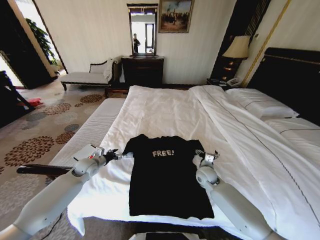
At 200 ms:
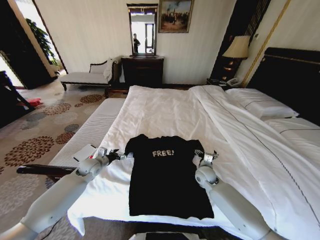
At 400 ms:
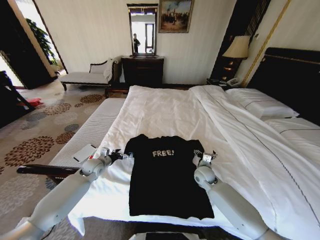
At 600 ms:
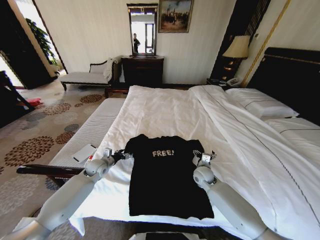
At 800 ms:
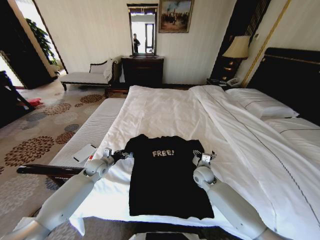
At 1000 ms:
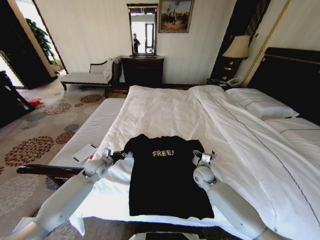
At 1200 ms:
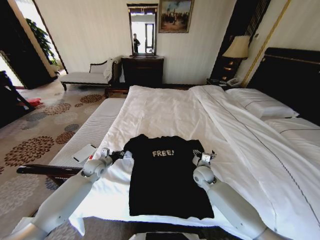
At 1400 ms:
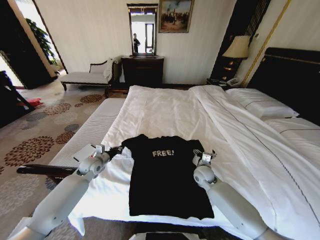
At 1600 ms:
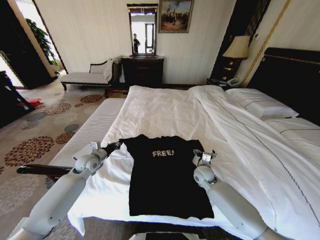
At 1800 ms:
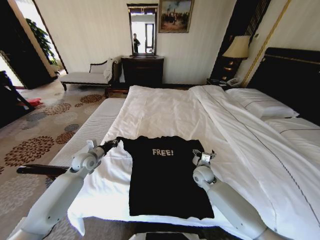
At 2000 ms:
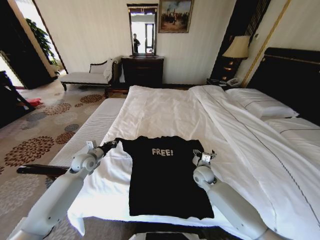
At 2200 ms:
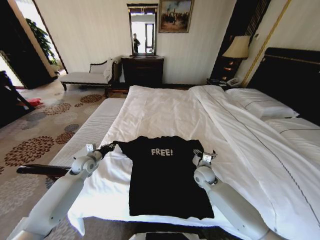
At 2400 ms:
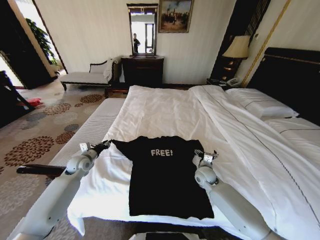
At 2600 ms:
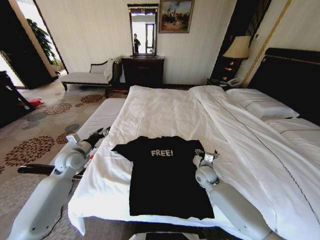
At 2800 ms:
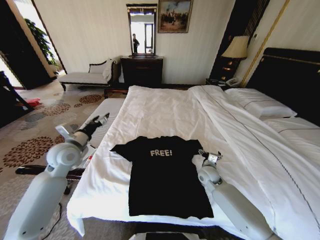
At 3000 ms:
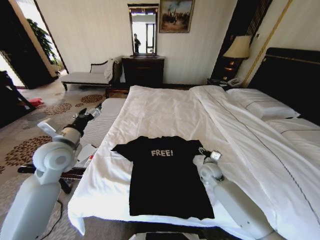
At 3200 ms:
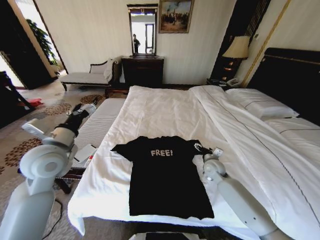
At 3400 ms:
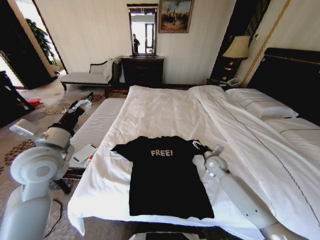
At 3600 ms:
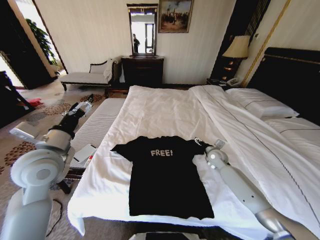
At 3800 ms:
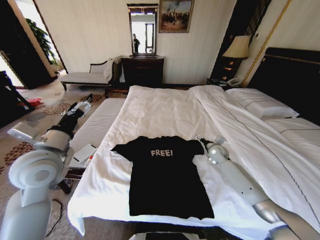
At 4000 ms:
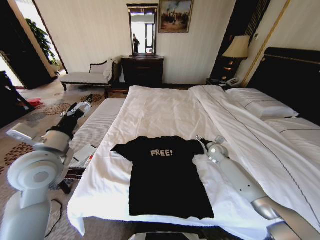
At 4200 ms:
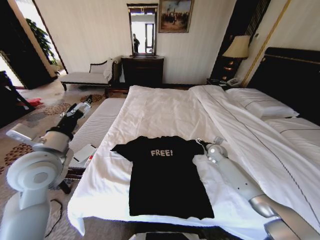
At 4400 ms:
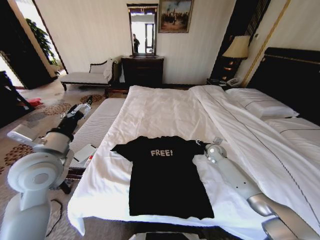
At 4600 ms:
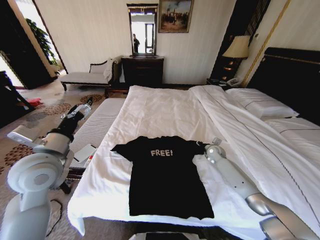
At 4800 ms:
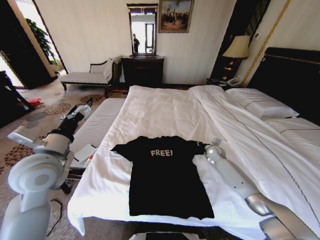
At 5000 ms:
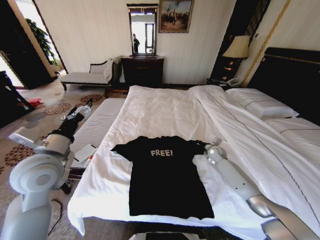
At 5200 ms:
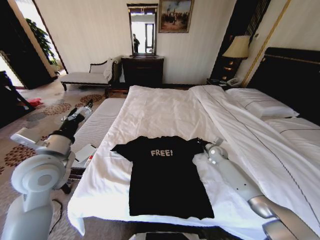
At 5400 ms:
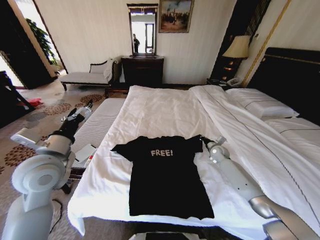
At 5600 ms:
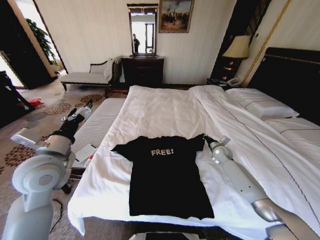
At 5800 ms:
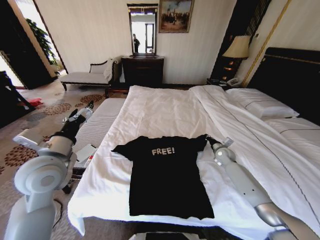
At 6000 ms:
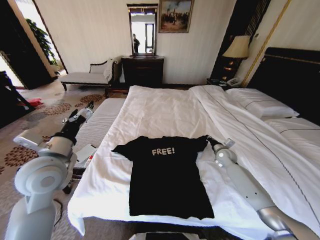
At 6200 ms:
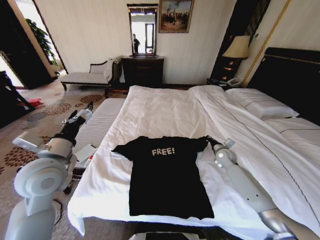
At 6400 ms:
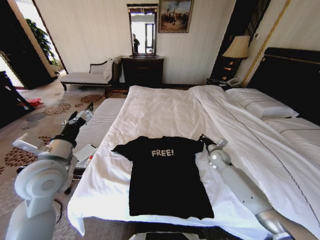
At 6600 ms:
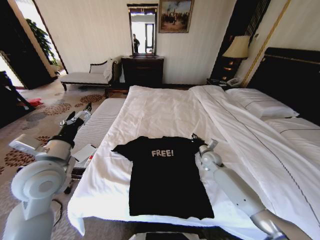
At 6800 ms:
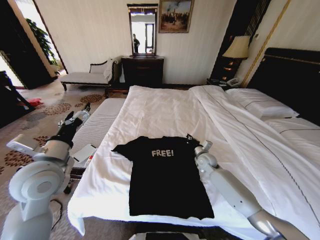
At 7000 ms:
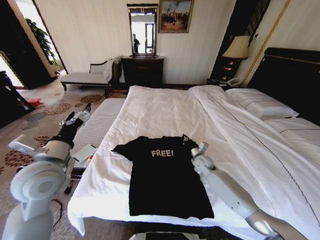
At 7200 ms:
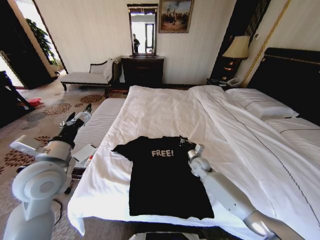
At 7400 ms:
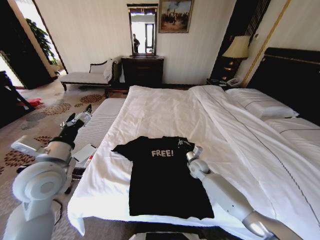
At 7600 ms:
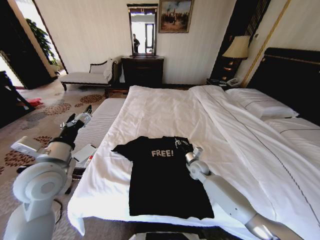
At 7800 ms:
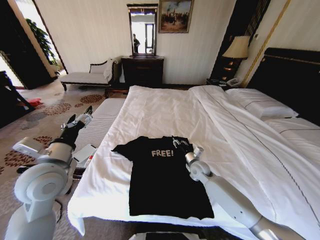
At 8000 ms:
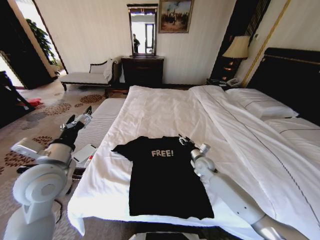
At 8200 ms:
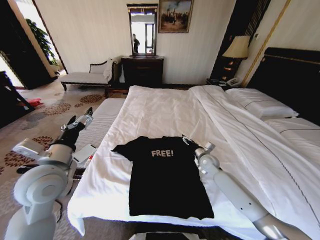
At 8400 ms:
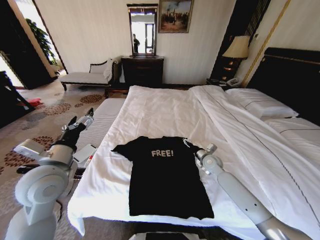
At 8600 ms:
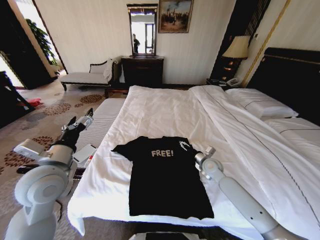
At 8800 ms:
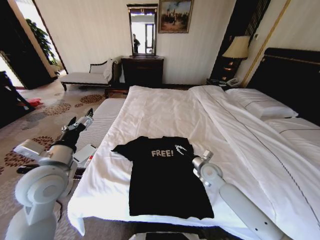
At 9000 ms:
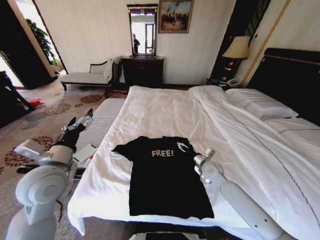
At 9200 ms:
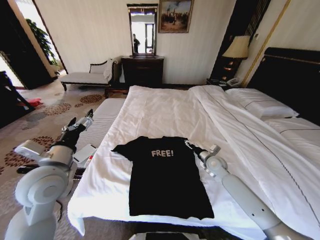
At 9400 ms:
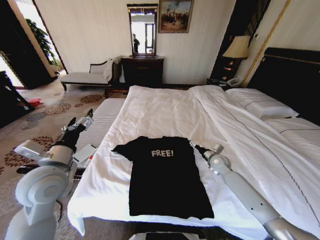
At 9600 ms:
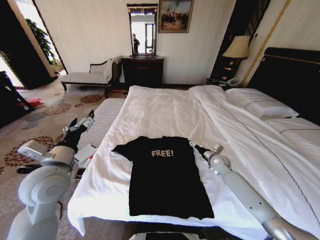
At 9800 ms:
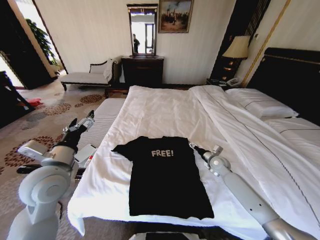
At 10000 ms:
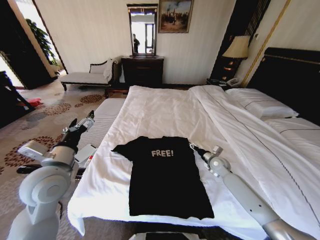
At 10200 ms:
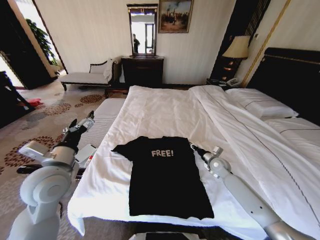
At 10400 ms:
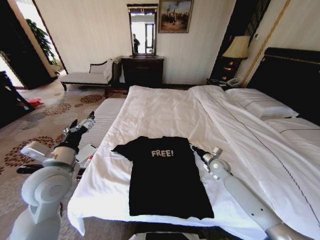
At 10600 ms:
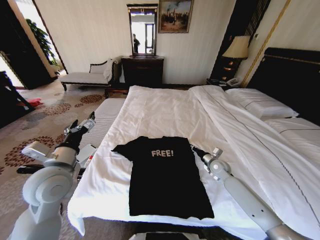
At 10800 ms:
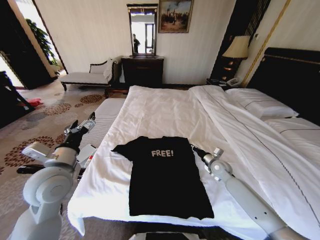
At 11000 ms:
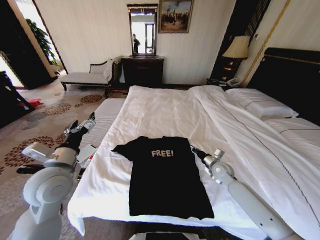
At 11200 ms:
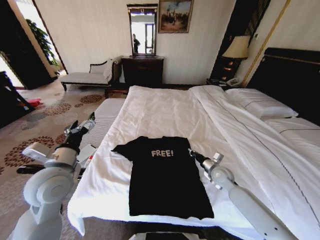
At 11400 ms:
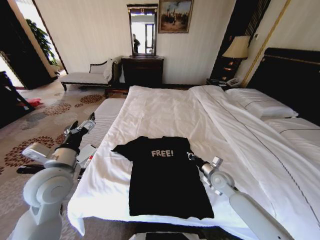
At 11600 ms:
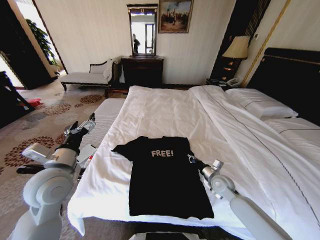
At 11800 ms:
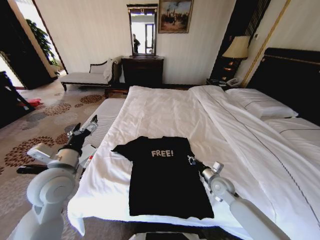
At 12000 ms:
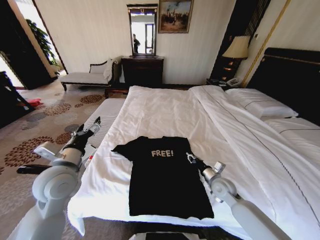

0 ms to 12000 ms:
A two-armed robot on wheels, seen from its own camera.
Task of the whole recording: Fold the clothes on the bed.
0 ms to 1600 ms: The left gripper closes up.
1600 ms to 3000 ms: The left gripper travels upward and backward by about 20 cm, and opens up.
3000 ms to 4400 ms: The right gripper travels forward and to the right by about 15 cm; the left gripper heads backward, covering some 5 cm.
4400 ms to 6000 ms: The right gripper changes place by roughly 5 cm, and closes its fingers.
6000 ms to 7600 ms: The right gripper travels to the left by roughly 15 cm.
7600 ms to 9000 ms: The right gripper travels upward by some 5 cm, and opens up.
9000 ms to 10400 ms: The right gripper is displaced to the right by some 10 cm, and closes its fingers.
10400 ms to 12000 ms: The right gripper goes some 10 cm backward.

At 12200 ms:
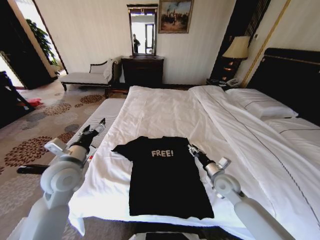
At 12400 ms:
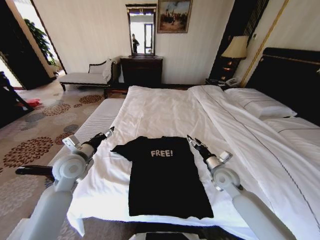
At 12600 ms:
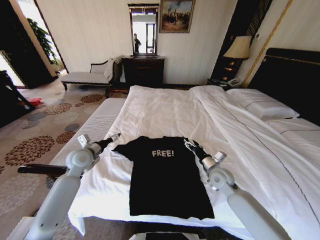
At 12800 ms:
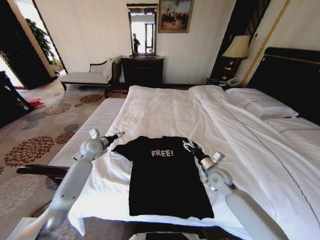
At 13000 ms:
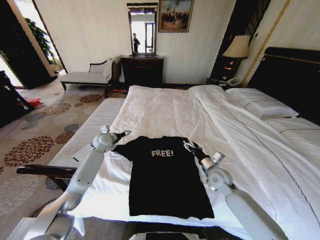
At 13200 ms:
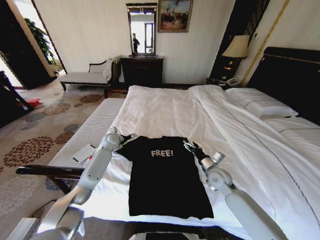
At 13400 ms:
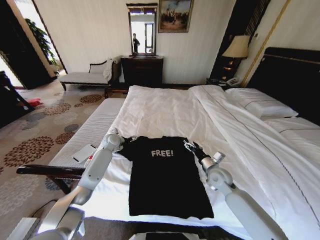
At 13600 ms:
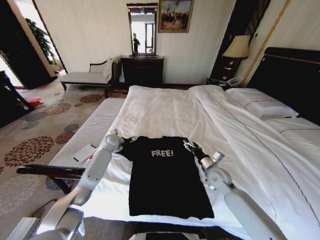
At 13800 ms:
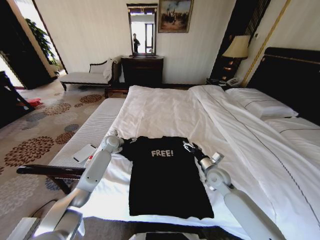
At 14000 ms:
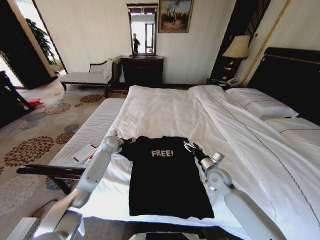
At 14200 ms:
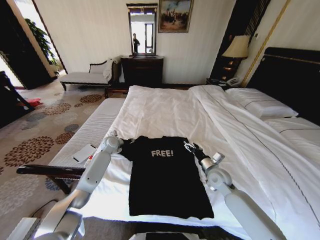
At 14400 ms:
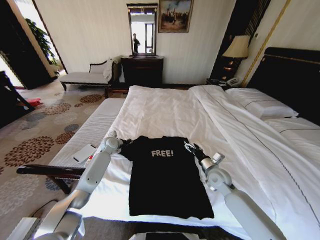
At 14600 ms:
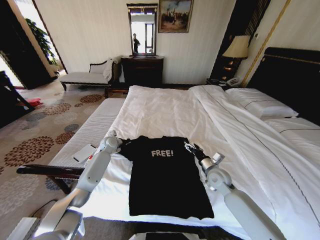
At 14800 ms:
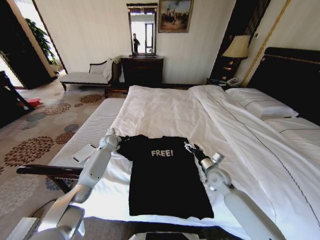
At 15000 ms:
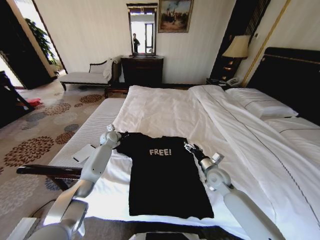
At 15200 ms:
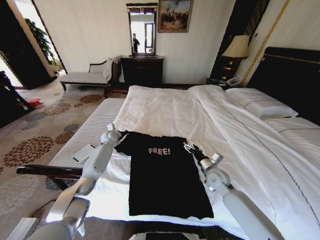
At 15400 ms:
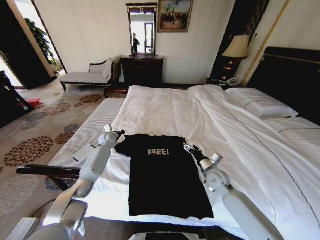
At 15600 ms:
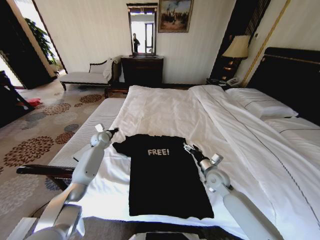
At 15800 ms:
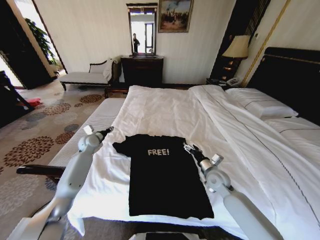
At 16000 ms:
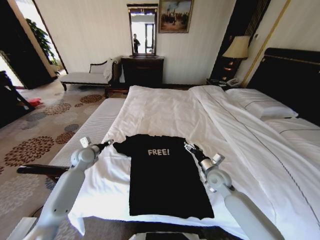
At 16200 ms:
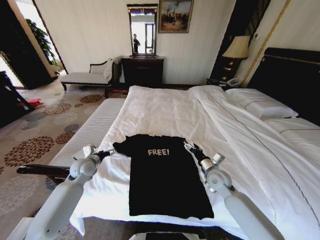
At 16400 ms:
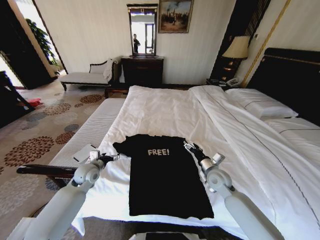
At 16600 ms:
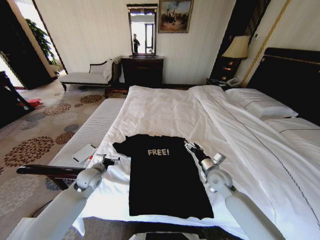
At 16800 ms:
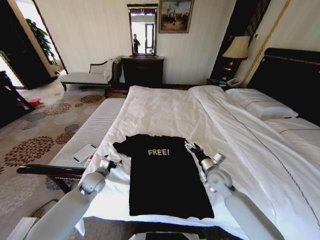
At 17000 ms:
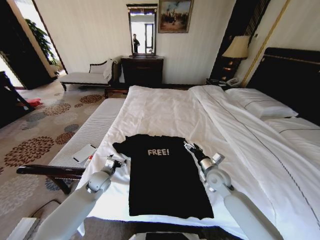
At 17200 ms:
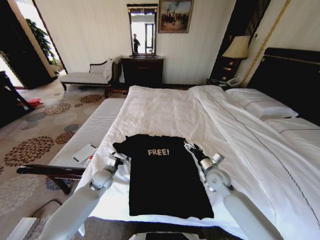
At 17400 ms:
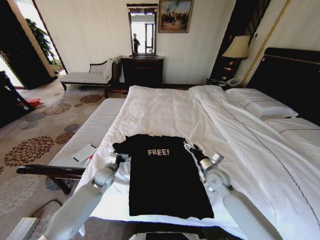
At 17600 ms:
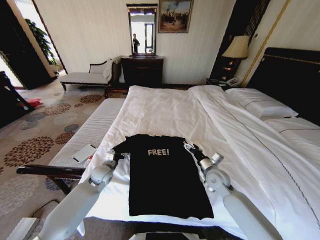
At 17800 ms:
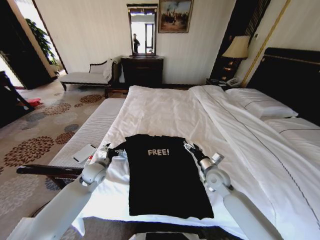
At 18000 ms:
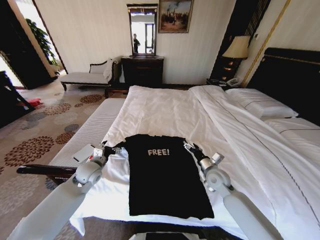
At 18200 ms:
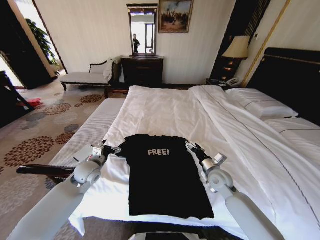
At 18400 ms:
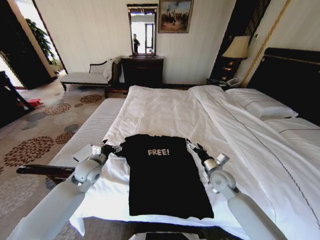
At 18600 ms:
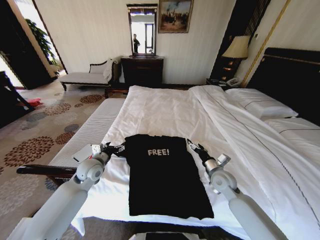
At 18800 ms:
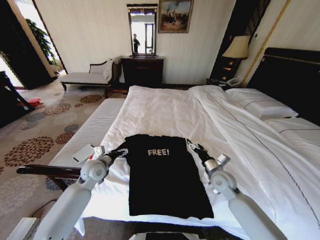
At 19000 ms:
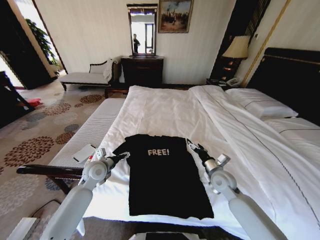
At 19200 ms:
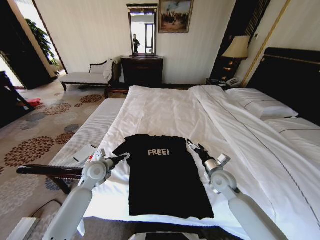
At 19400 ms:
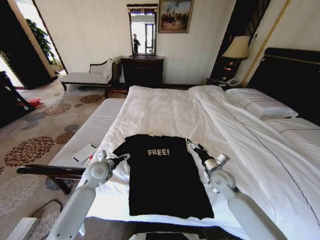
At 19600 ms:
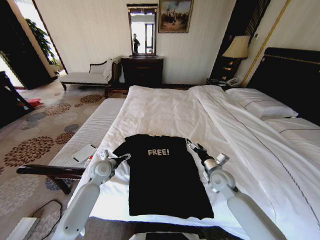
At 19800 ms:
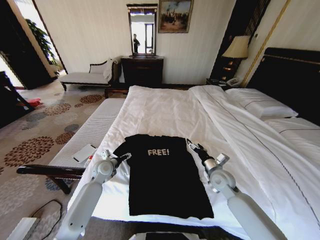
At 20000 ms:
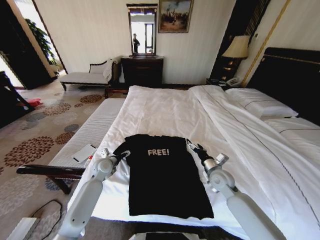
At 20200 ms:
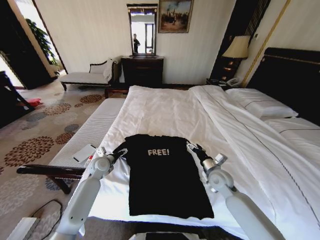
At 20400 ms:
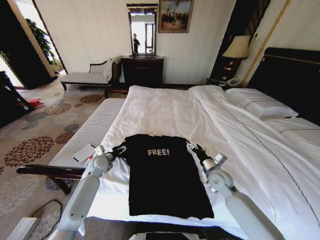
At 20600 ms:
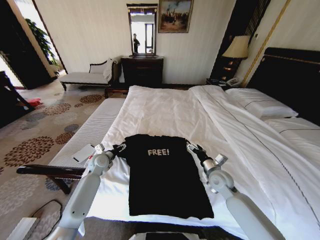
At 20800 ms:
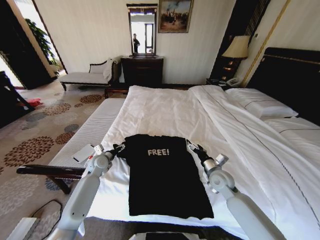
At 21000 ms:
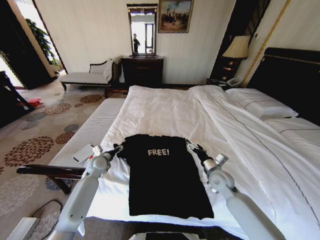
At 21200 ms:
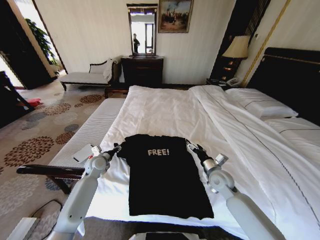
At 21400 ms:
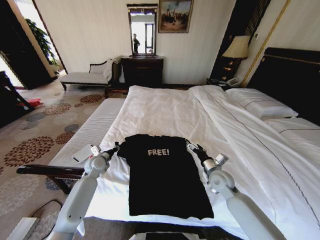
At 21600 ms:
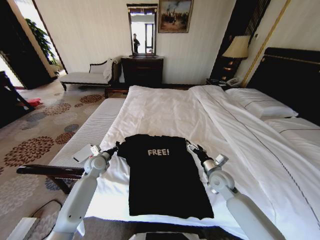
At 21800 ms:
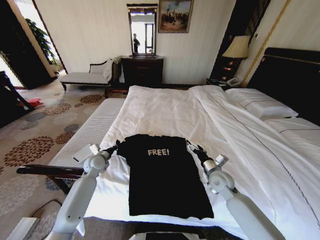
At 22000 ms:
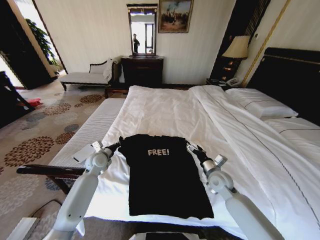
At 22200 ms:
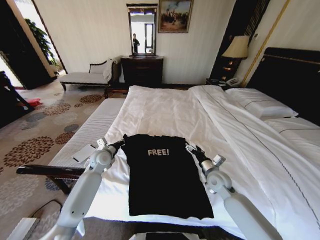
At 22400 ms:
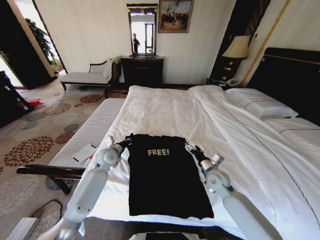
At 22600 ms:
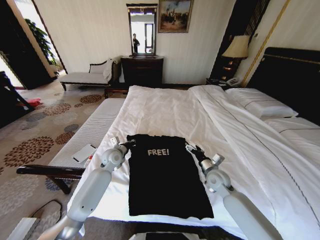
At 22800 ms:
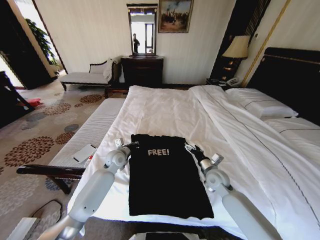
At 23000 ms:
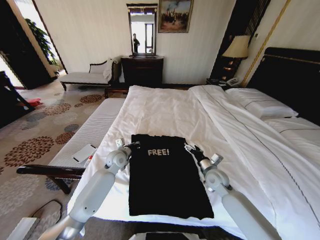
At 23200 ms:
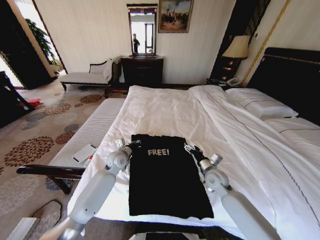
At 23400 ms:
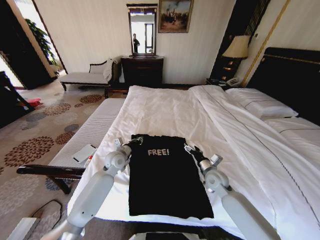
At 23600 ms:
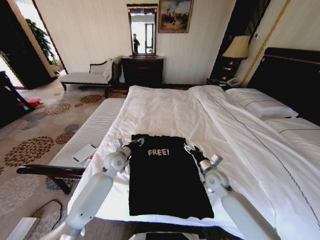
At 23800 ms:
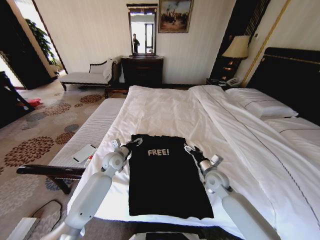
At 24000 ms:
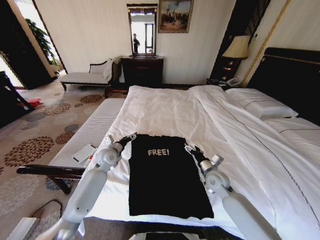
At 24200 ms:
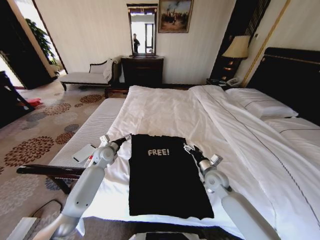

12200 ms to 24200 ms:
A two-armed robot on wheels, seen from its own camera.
Task of the whole recording: Fold the clothes on the bed.
12200 ms to 13800 ms: The left gripper is displaced forward and downward by some 30 cm. Meanwhile the right gripper opens.
13800 ms to 15200 ms: The left gripper closes its fingers.
15200 ms to 16600 ms: The left gripper shifts some 25 cm backward, and opens its fingers.
16600 ms to 18200 ms: The left gripper moves approximately 5 cm.
18200 ms to 19800 ms: The left gripper shifts about 5 cm downward.
19800 ms to 21200 ms: The left gripper closes.
21200 ms to 22600 ms: The left gripper heads to the right, covering some 10 cm, and closes.
22600 ms to 24200 ms: The left gripper shifts by some 5 cm, and opens up.
